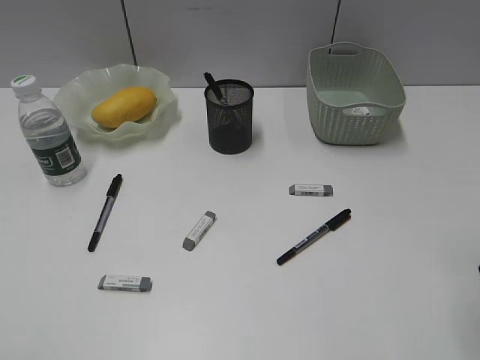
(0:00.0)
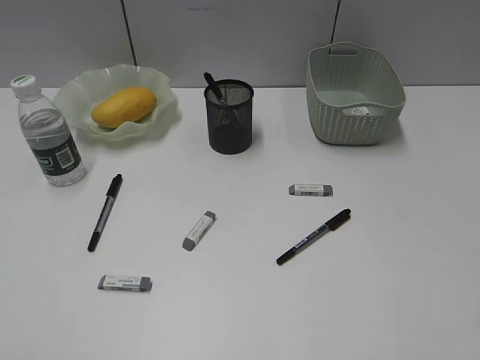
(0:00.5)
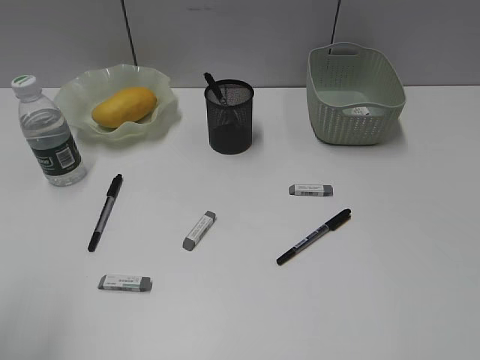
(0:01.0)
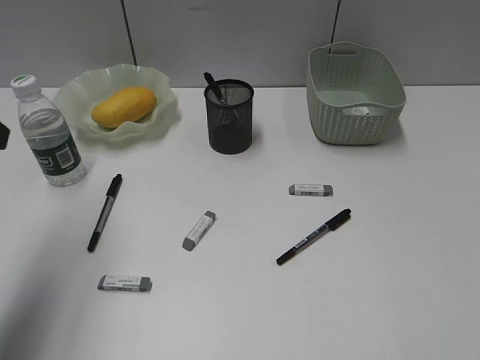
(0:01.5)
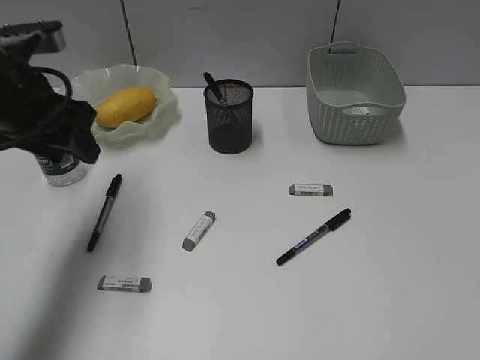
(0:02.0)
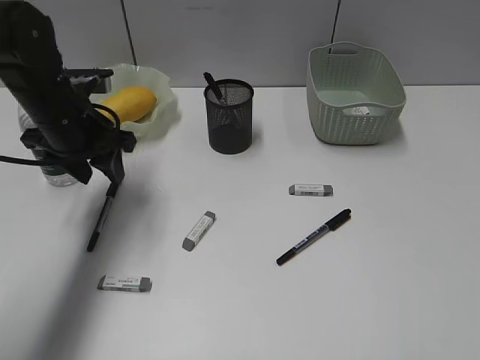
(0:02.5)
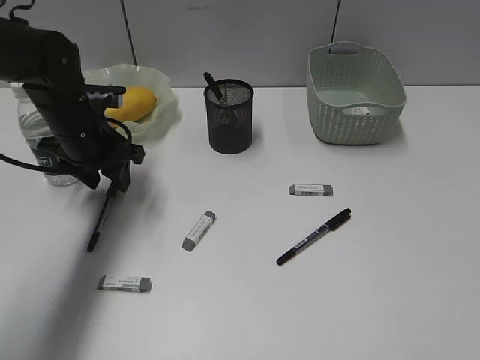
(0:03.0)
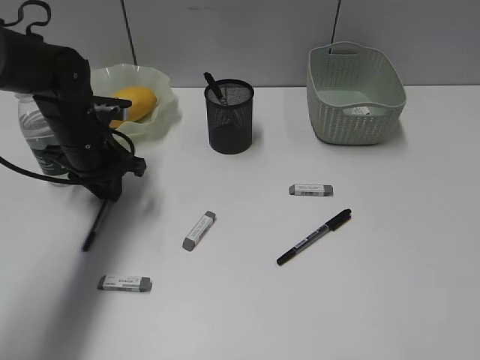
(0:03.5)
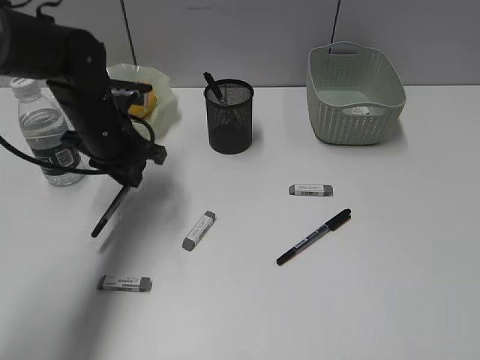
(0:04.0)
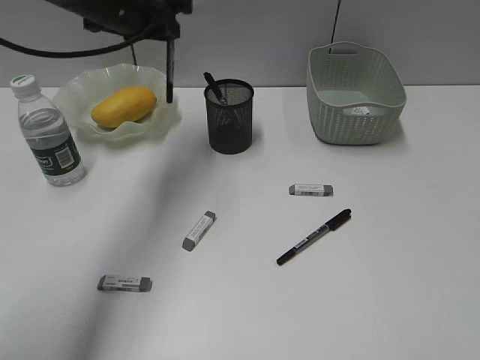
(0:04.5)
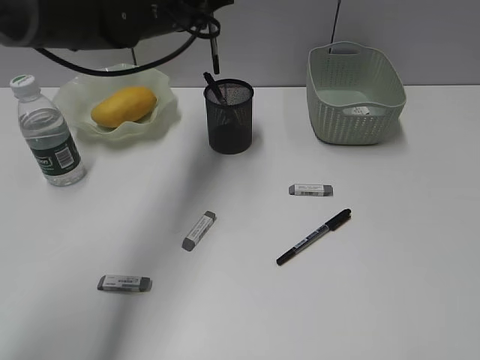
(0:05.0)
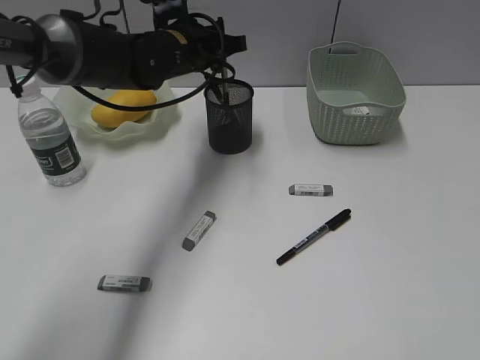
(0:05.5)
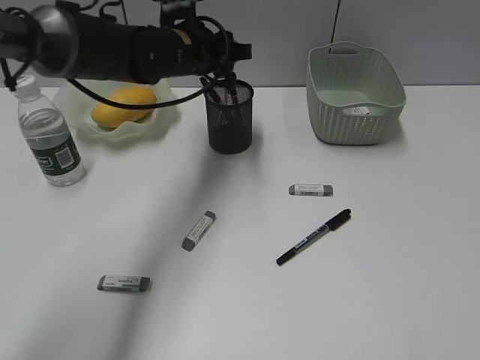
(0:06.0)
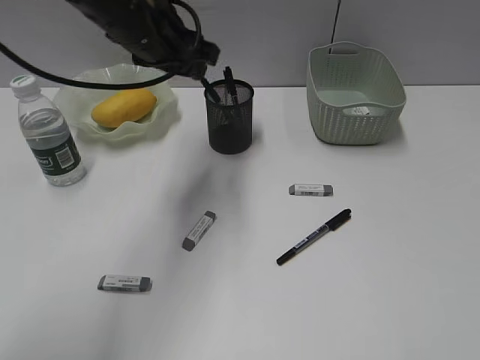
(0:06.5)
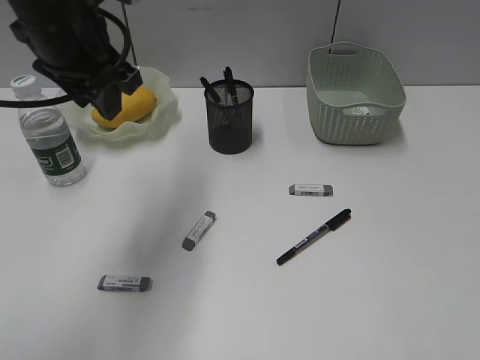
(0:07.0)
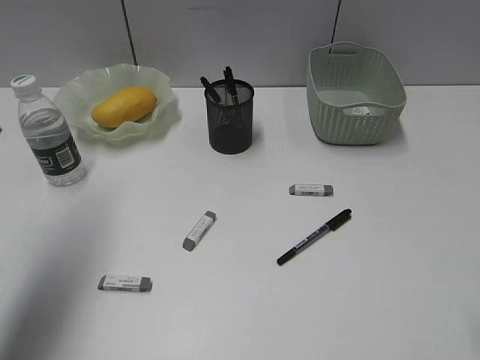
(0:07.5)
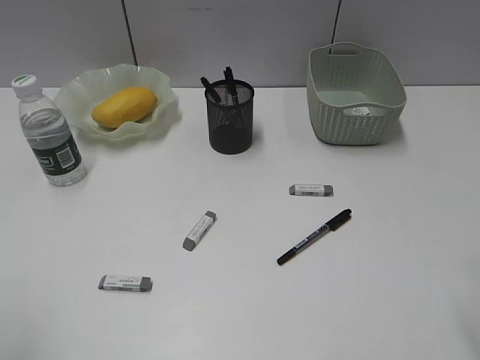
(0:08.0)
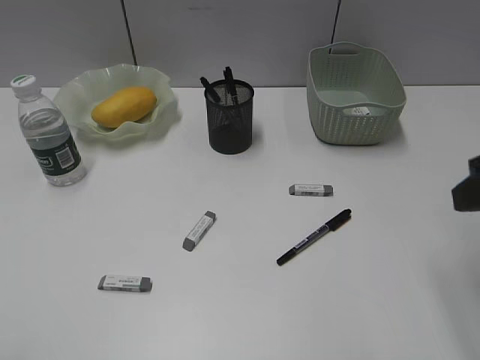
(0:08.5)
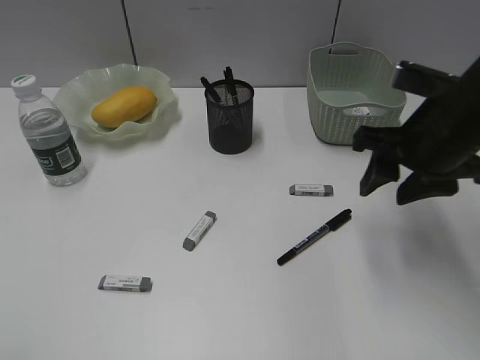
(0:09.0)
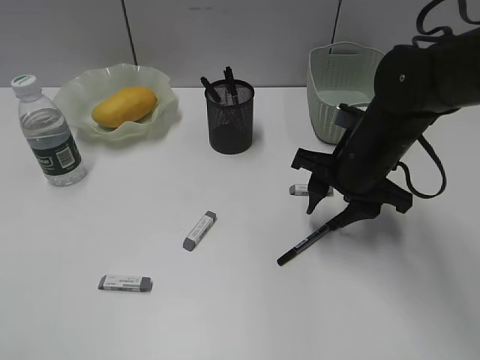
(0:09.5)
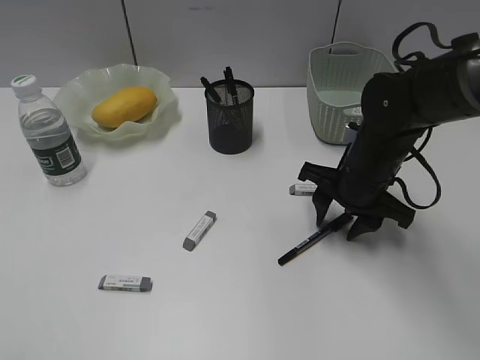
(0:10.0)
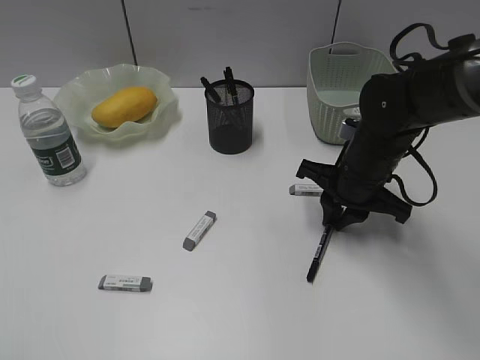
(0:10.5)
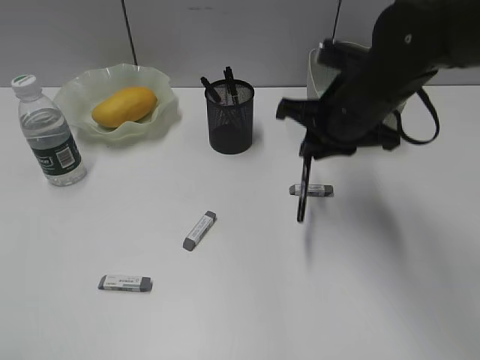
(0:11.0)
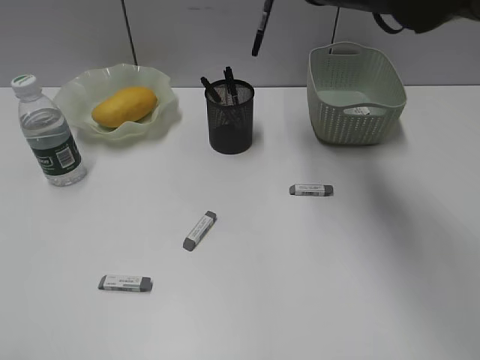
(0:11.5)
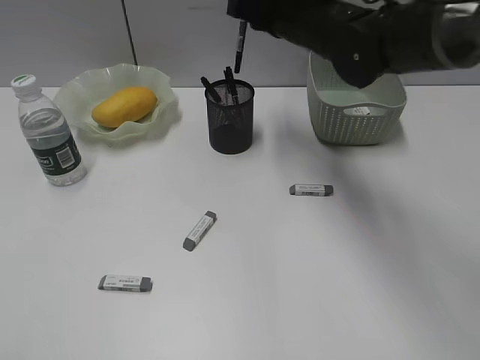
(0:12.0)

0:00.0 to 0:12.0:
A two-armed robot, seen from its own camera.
Step, 0:00.0 to 0:03.5: Grasp the black pen with left gripper.
Step, 0:04.0 to 0:06.0: Place the black pen in pen holder with left gripper.
Step, 0:06.5 to 0:10.5: Grasp the black pen with right gripper.
0:00.0 to 0:02.0: The left gripper goes roughly 35 cm forward.
0:02.0 to 0:04.0: The left gripper goes approximately 10 cm downward, forward and to the right, and closes up.
0:04.0 to 0:06.0: The left gripper is displaced to the right, forward and upward by approximately 10 cm, and opens.
0:06.0 to 0:08.0: The left gripper moves backward and to the left, about 50 cm. Meanwhile the right gripper travels forward by approximately 10 cm.
0:08.0 to 0:10.0: The left gripper heads backward, covering approximately 5 cm; the right gripper shifts about 25 cm forward, downward and to the left.
0:10.0 to 0:12.0: The right gripper moves upward, forward and to the left, about 20 cm, and closes up.

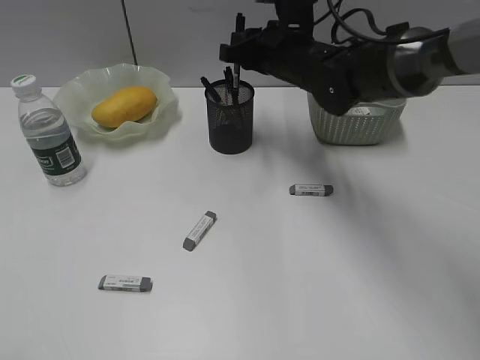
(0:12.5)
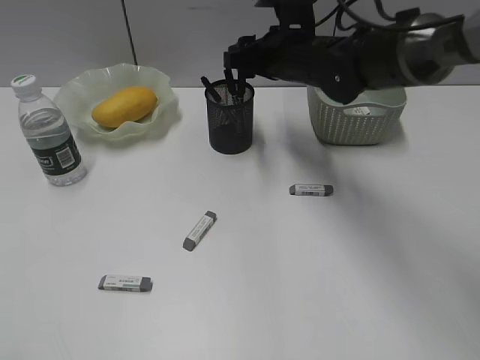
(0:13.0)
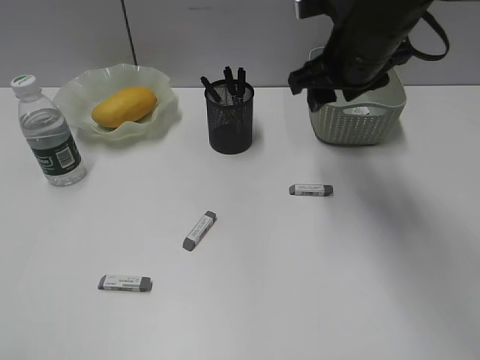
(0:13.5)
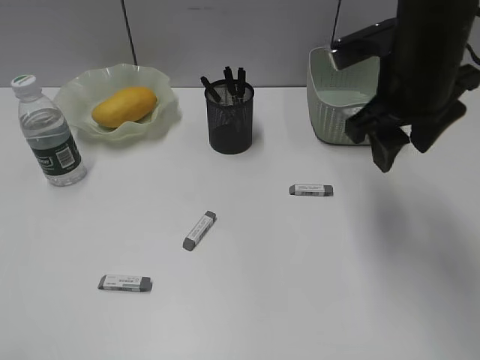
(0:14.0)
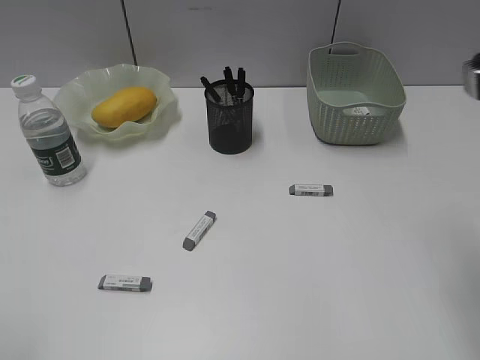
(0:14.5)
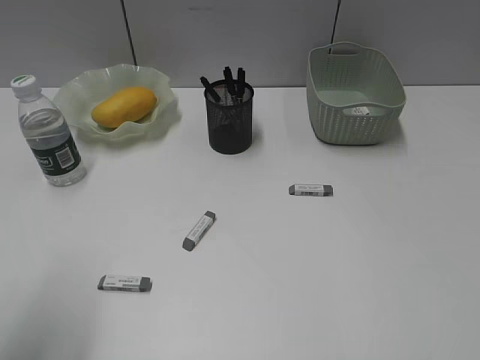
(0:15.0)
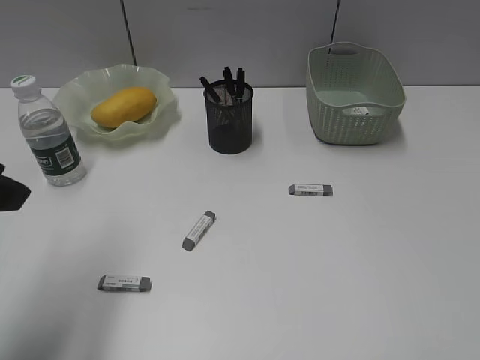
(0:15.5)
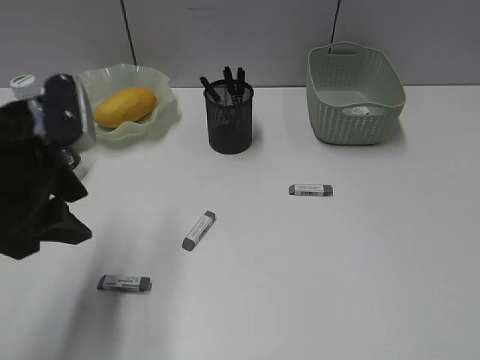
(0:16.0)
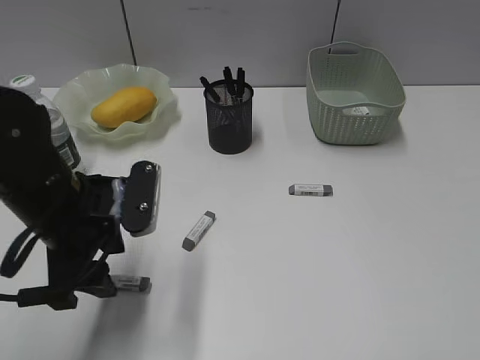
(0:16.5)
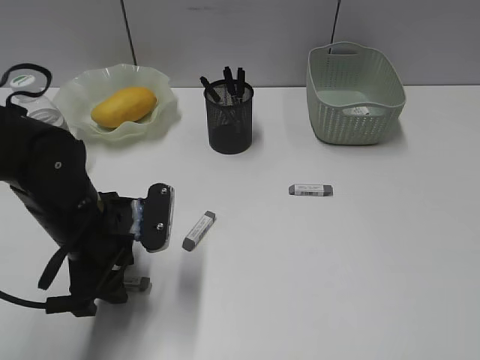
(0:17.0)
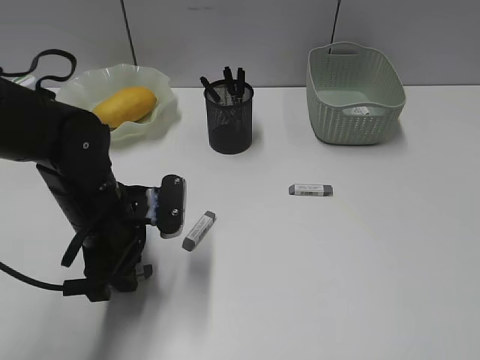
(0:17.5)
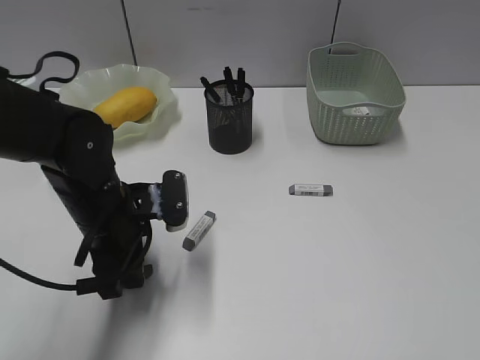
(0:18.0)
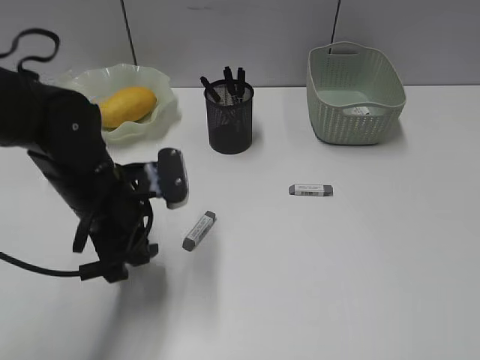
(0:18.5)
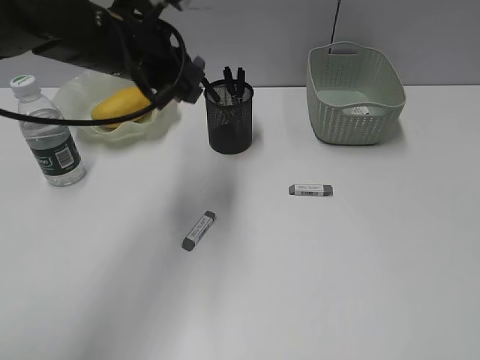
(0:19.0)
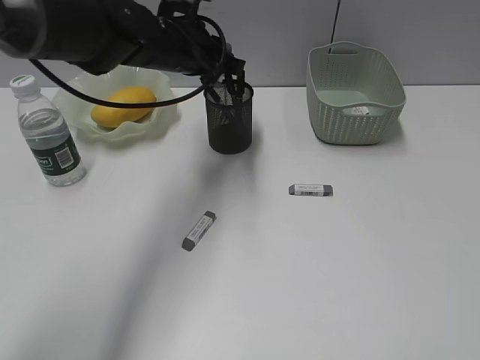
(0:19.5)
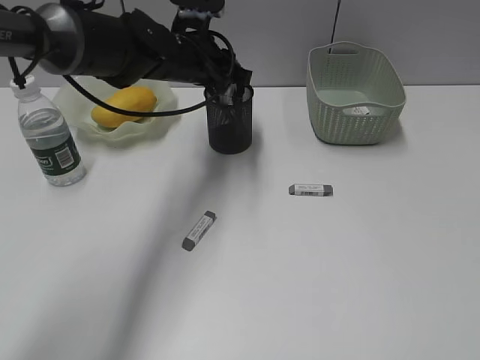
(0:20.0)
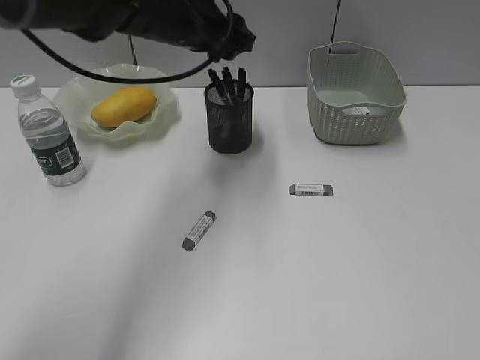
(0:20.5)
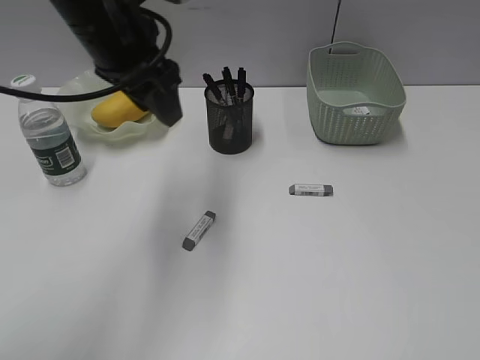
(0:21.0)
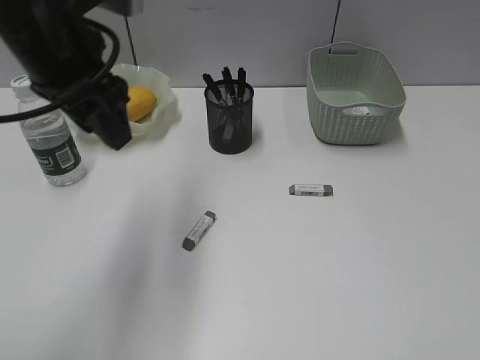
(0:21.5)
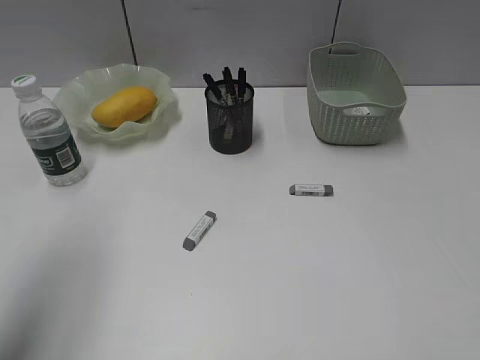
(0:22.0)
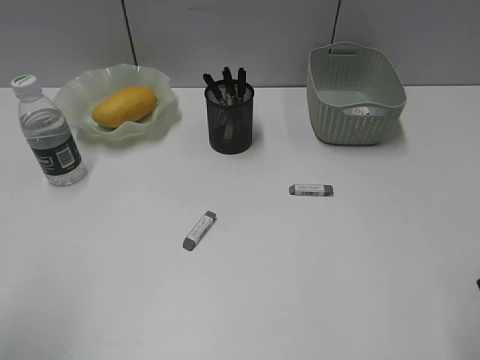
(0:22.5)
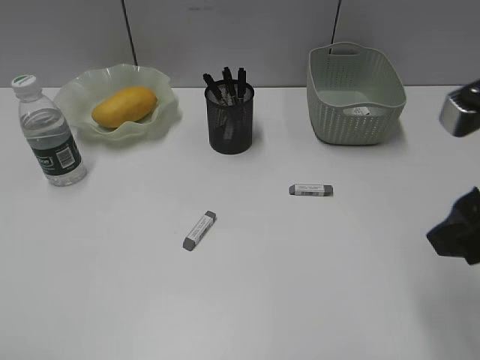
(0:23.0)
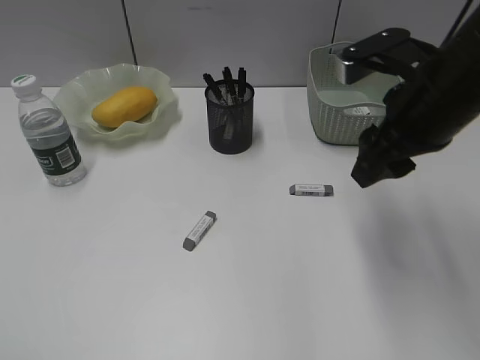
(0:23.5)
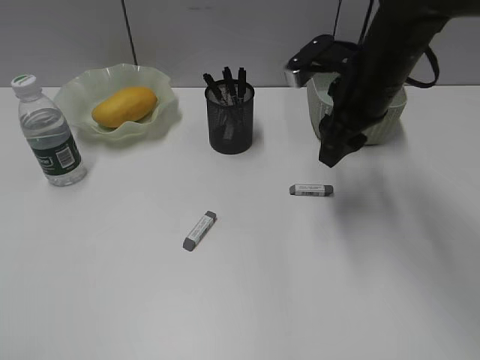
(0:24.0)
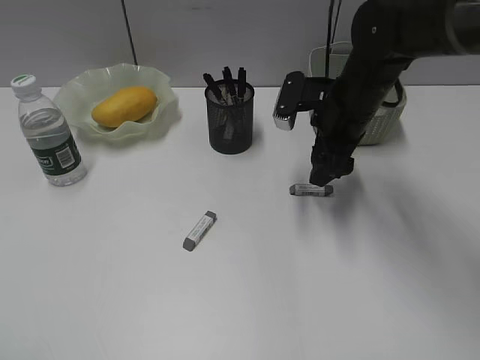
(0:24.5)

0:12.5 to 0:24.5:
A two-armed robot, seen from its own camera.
Step, 0:13.5 to 0:18.0: Grasp the eraser with left gripper.
Step, 0:18.5 to 0:20.0: Place the eraser in pen holder with left gripper.
0:12.5 to 0:14.5: The right gripper moves backward, to the right and upward, approximately 30 cm, and opens.
0:14.5 to 0:16.5: The left gripper is displaced forward, to the right and downward by about 30 cm. Meanwhile the right gripper heads backward and to the right, covering approximately 20 cm.
0:16.5 to 0:18.5: The left gripper closes up.
0:18.5 to 0:20.5: The left gripper moves forward, upward and to the right, approximately 20 cm, and opens up.
0:20.5 to 0:22.5: The right gripper heads forward and to the left, covering some 15 cm. The left gripper shifts approximately 40 cm backward and to the left.
0:22.5 to 0:24.5: The right gripper moves forward, roughly 25 cm, while the left gripper travels backward by approximately 10 cm.

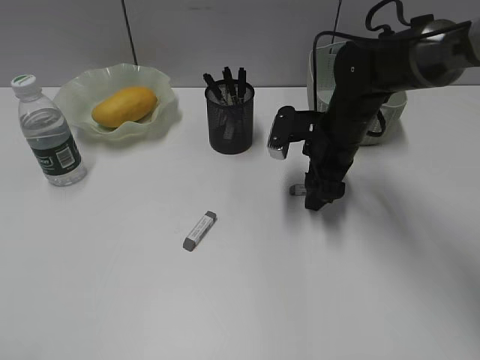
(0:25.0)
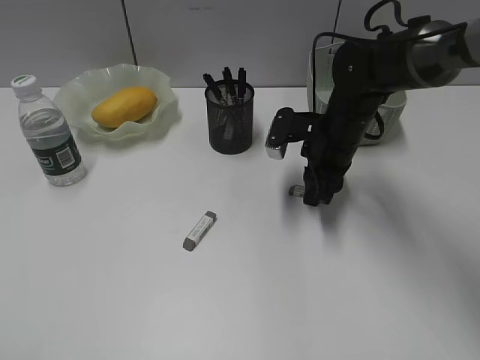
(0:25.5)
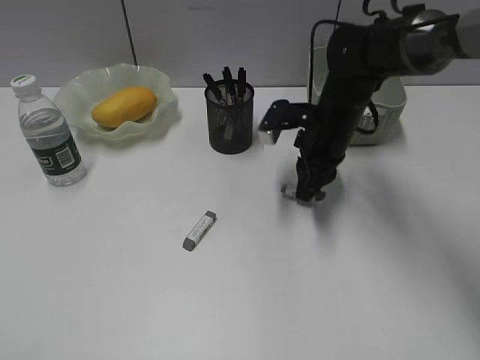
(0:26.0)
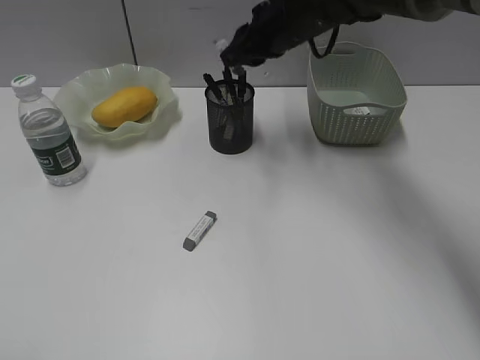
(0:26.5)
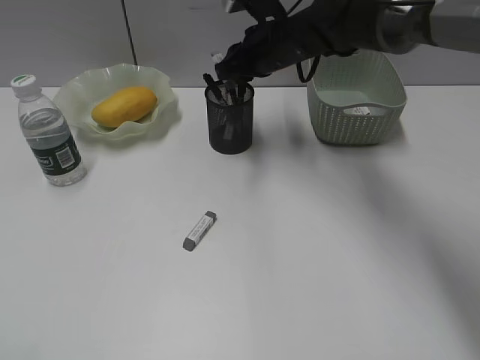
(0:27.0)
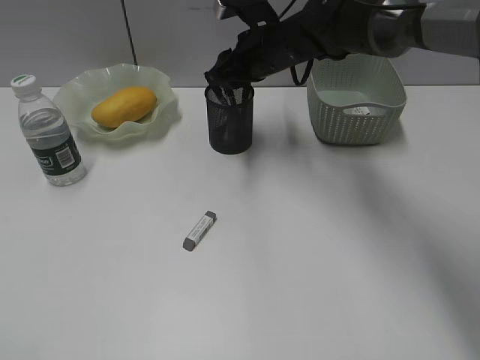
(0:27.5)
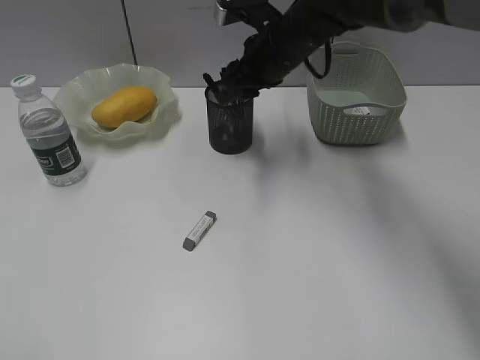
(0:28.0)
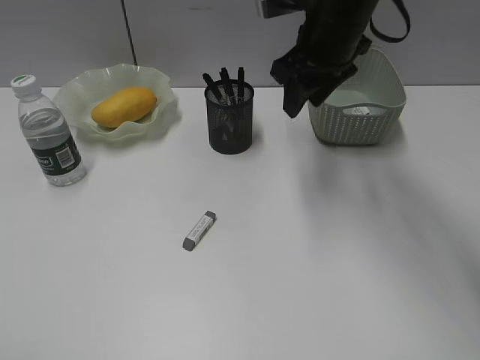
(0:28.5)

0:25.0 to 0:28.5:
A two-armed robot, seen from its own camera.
Step, 0:26.0 to 0:27.5: Place the eraser in pen holder with right gripper.
0:25.0 to 0:27.0: The right gripper travels forward, to the left and upward by about 15 cm, and closes up.
0:27.0 to 0:28.5: The right gripper travels upward and backward by roughly 10 cm, and opens.
